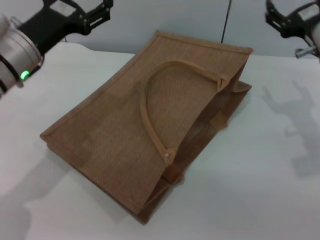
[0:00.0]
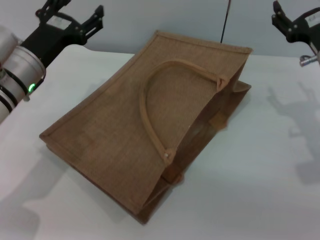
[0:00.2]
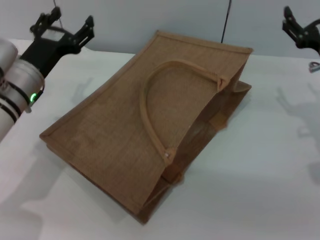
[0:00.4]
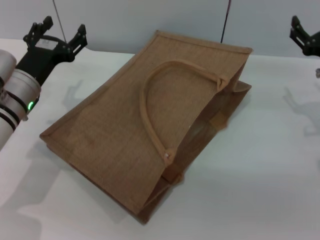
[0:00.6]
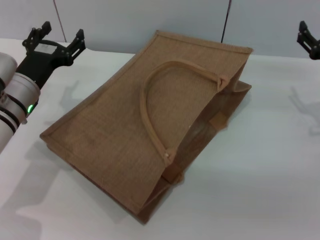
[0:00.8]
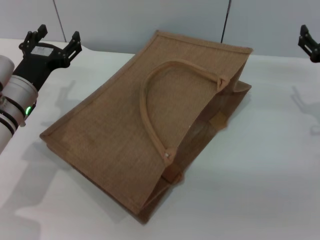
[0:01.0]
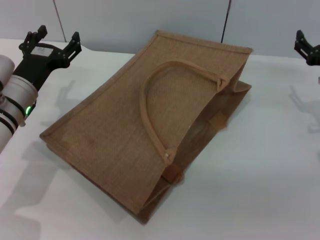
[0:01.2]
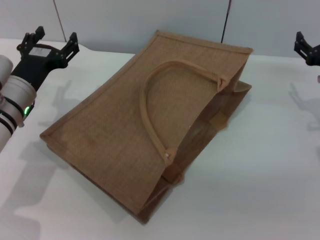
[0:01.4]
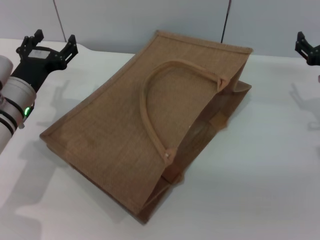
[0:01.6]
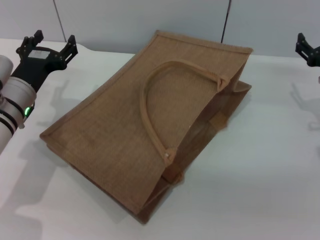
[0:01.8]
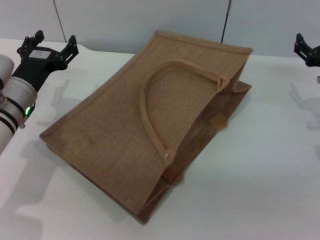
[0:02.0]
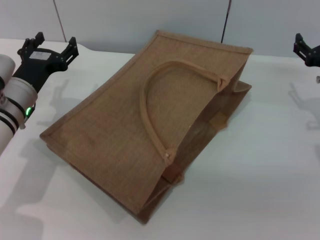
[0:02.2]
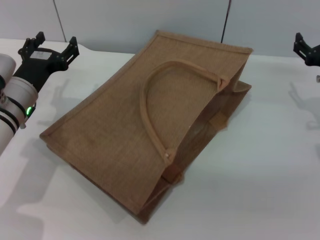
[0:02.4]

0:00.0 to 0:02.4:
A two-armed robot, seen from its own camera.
Task of the whole recording: pick up the orange and peach from the table and place it in the brown handbag.
0:00.0 to 0:01.2: The right gripper shifts about 10 cm downward and to the right; the left gripper shifts some 10 cm downward.
0:01.2 to 0:02.4: Neither gripper changes place.

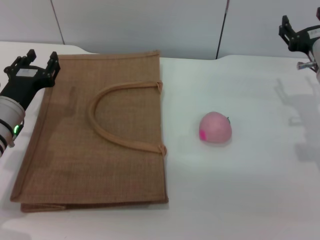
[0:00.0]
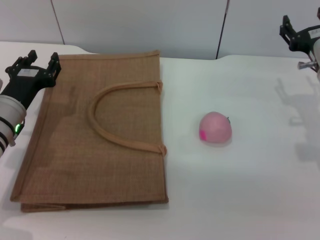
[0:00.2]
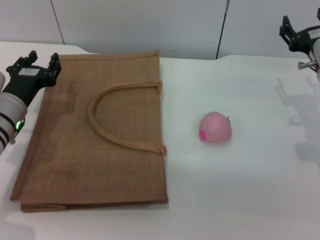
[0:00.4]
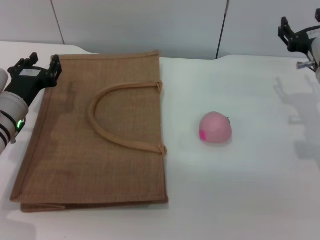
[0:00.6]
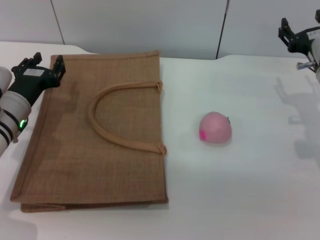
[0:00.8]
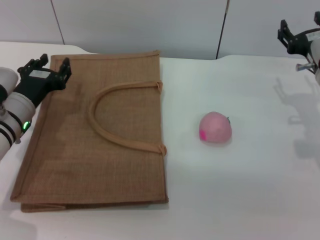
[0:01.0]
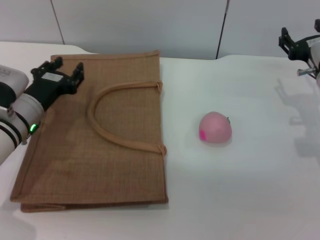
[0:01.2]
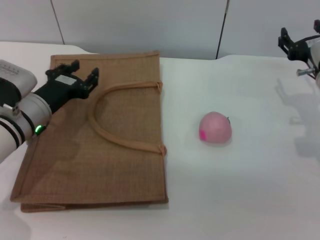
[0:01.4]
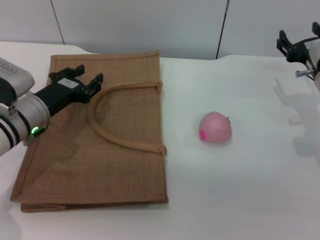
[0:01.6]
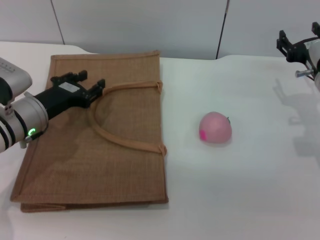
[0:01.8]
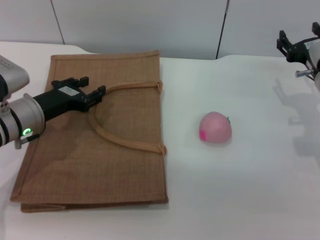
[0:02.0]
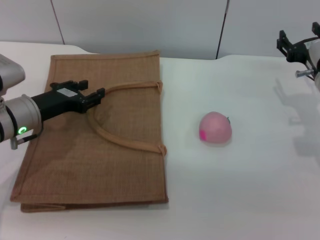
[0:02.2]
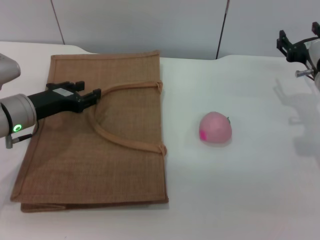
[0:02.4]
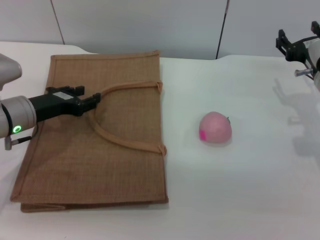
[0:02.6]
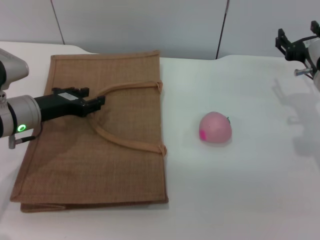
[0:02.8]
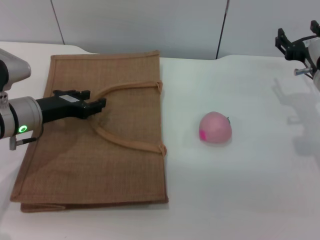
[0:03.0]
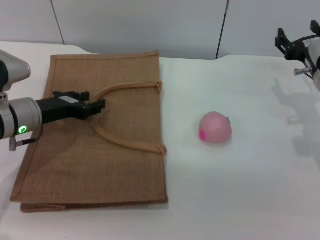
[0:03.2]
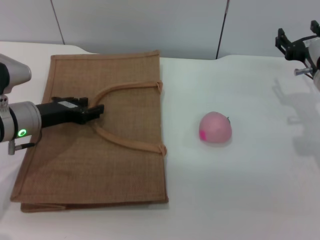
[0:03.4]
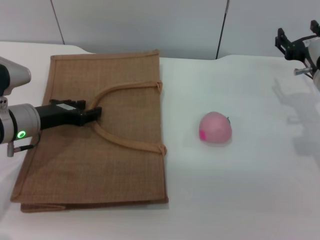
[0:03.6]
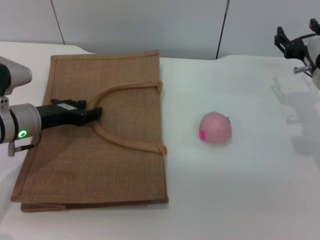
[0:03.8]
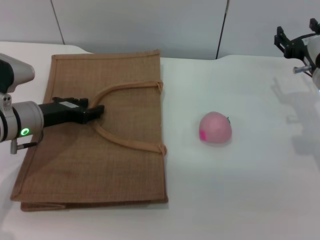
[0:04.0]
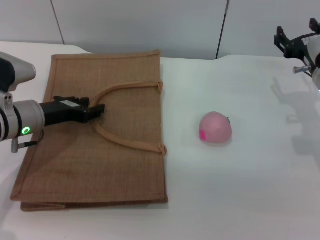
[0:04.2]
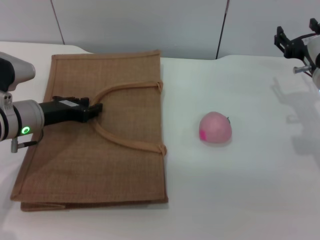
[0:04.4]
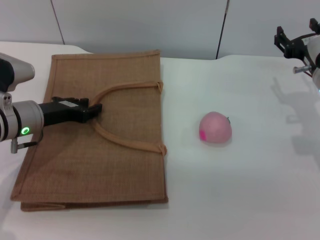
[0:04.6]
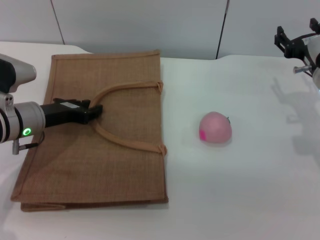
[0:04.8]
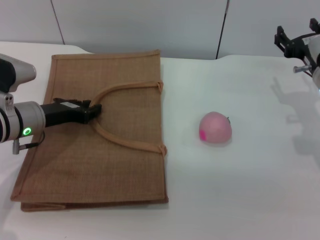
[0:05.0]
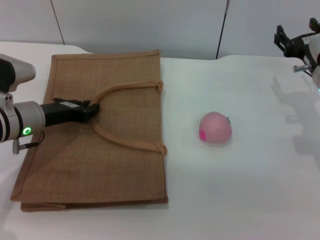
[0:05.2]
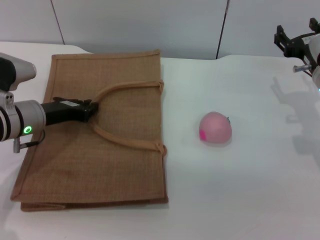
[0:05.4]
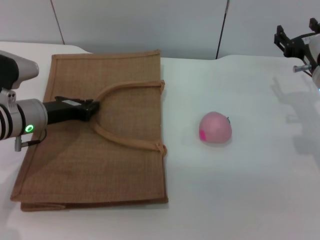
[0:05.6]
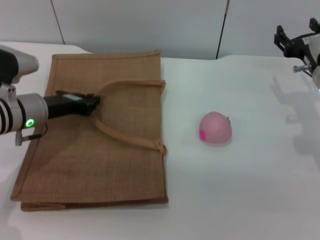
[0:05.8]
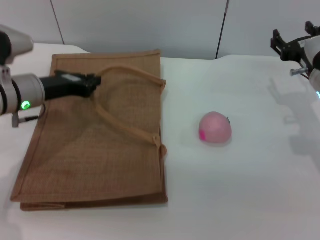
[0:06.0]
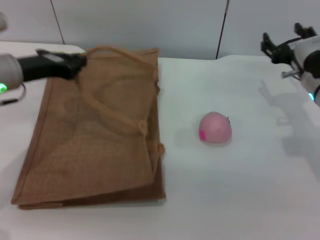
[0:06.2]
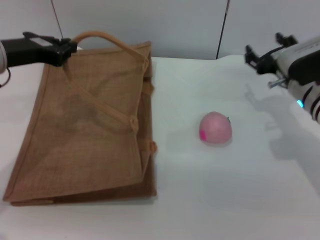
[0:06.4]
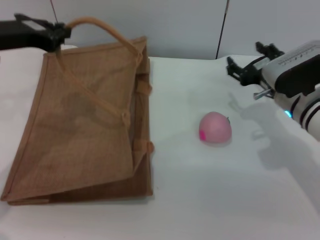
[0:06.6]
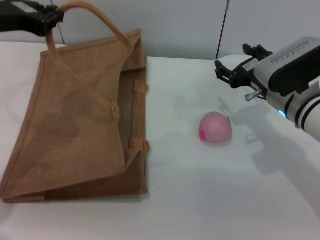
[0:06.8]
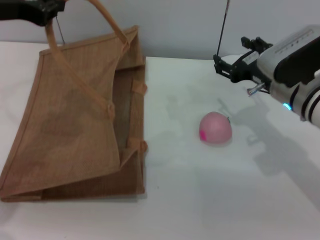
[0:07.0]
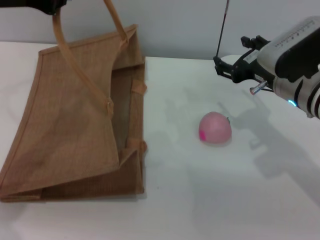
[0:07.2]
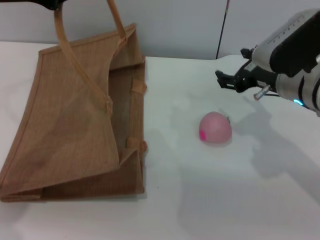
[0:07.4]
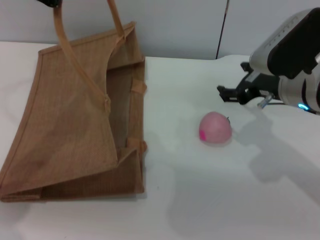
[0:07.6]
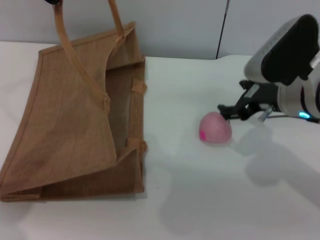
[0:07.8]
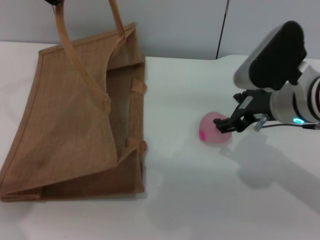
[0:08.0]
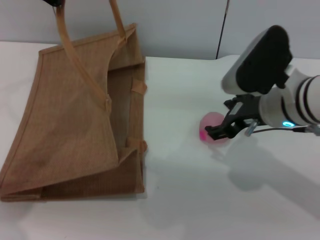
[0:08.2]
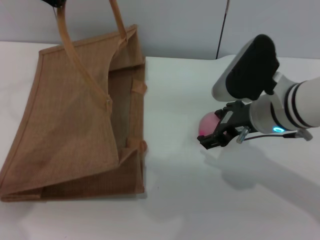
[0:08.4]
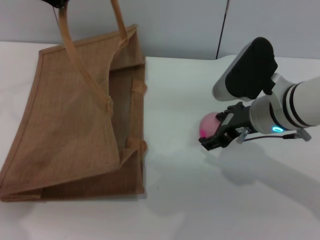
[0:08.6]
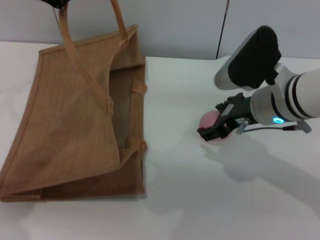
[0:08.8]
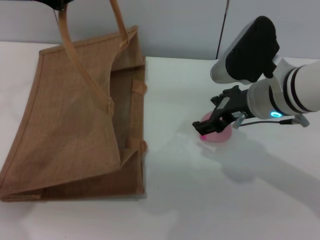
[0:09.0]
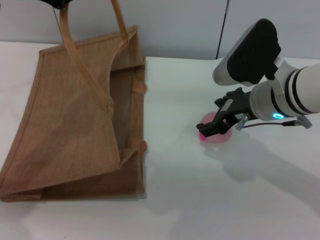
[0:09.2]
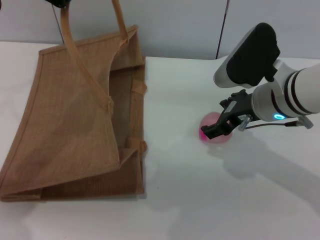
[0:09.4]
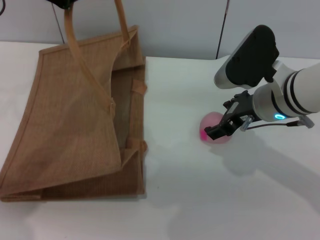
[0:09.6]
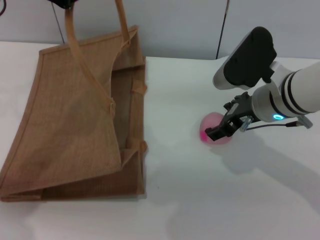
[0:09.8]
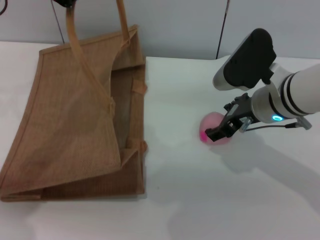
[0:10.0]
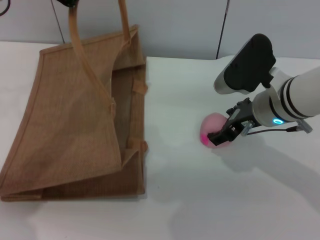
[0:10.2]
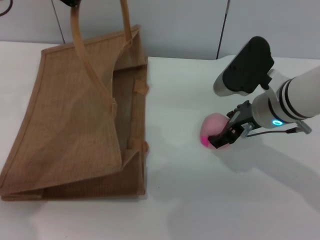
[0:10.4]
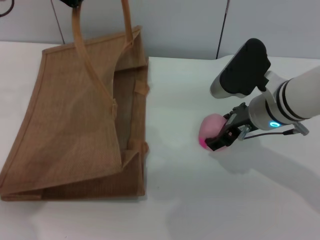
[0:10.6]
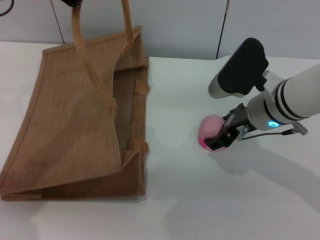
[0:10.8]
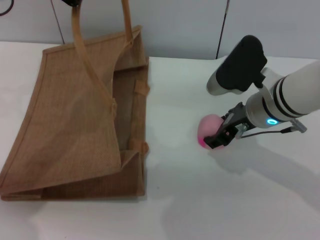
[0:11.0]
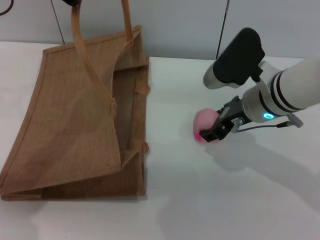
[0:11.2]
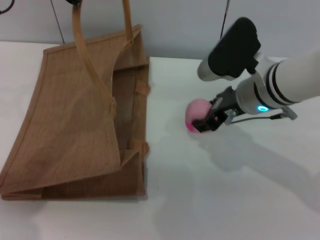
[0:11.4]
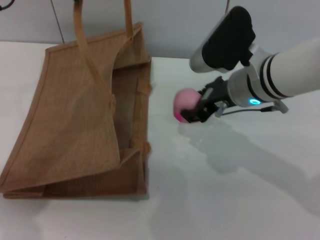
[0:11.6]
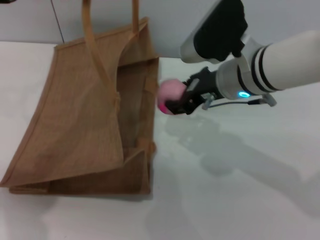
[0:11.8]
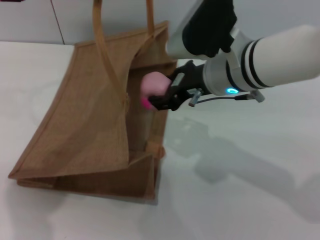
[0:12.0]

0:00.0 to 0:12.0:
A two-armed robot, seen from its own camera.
Task of the whole recording: pick up the peach from the table and place it in the brown handbag.
Step, 0:00.0 to 0:05.8: Lift the woven bag with the left gripper to open it.
Step, 0:06.0 to 0:11.6: Pick up the peach with the right gripper.
0:03.0 to 0:04.4: The grippers move only a little.
0:04.4 to 0:06.0: The left gripper closes up.
0:06.0 to 0:07.6: The right gripper moves upward and to the left, some 10 cm. The left gripper heads upward, covering some 20 cm.
0:09.0 to 0:10.4: The grippers move only a little.
0:10.4 to 0:12.0: The right gripper shifts some 10 cm to the left and upward, and closes its fingers.

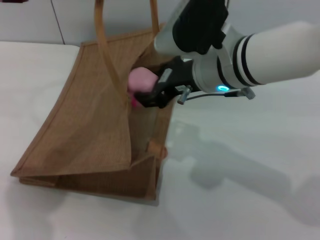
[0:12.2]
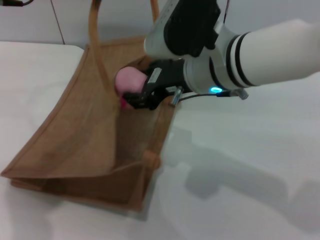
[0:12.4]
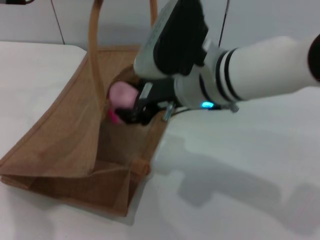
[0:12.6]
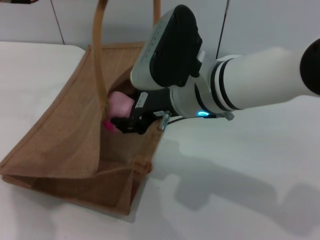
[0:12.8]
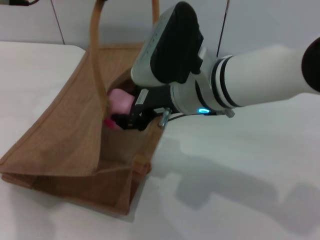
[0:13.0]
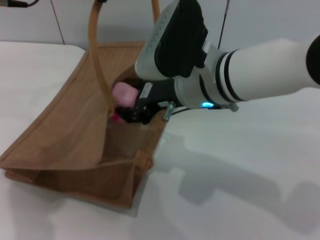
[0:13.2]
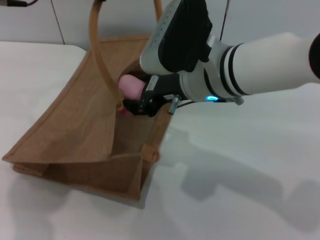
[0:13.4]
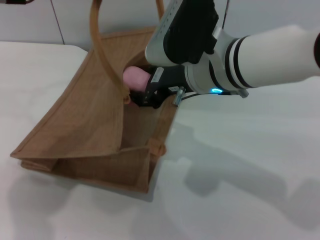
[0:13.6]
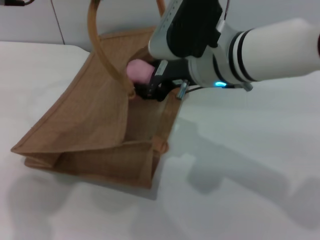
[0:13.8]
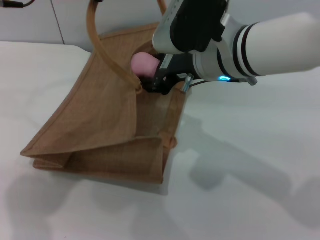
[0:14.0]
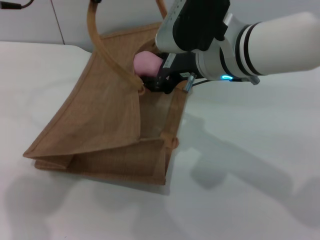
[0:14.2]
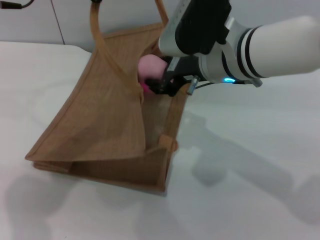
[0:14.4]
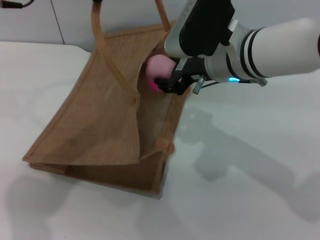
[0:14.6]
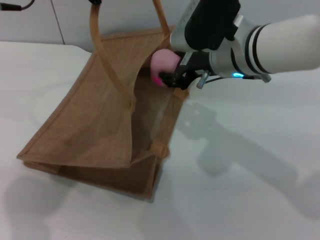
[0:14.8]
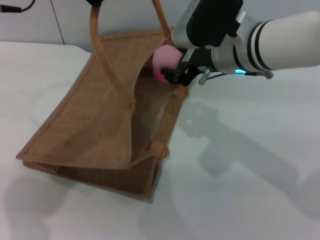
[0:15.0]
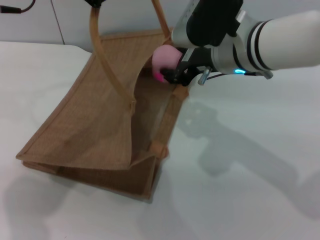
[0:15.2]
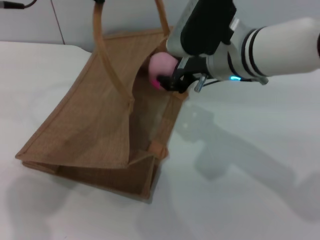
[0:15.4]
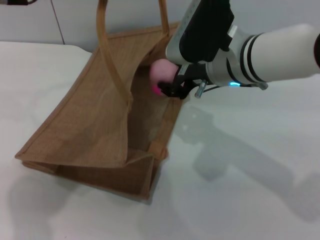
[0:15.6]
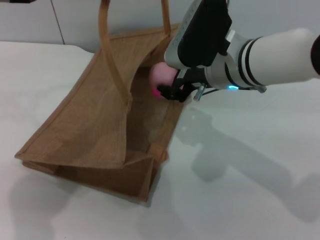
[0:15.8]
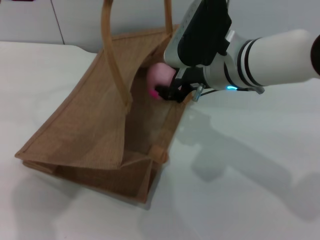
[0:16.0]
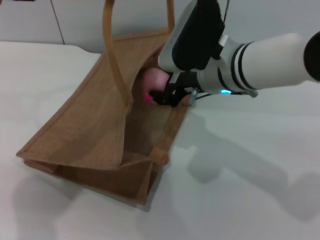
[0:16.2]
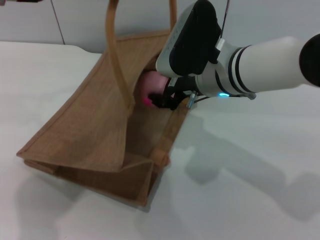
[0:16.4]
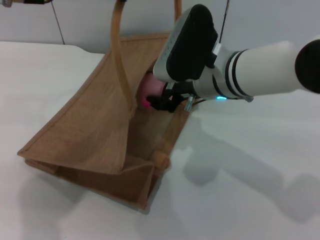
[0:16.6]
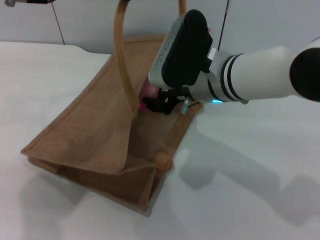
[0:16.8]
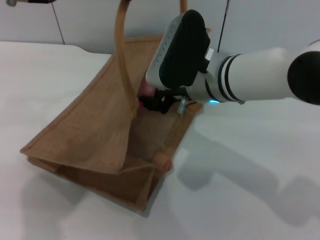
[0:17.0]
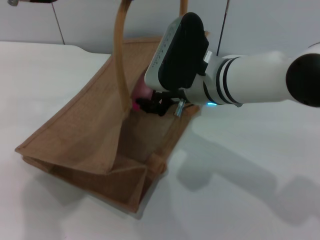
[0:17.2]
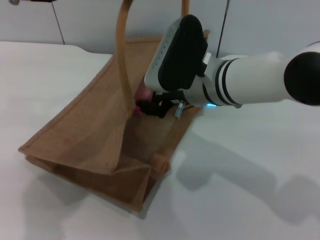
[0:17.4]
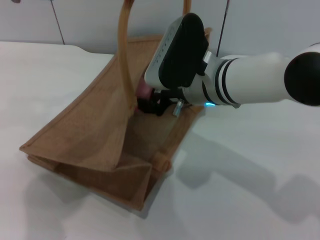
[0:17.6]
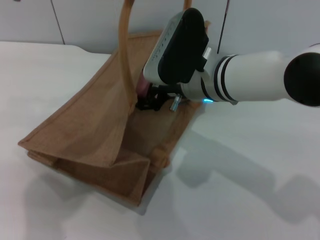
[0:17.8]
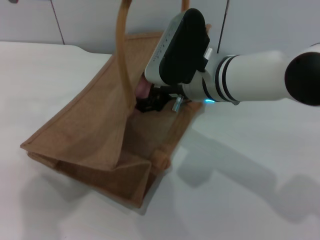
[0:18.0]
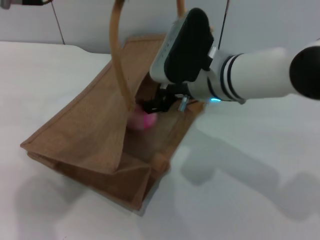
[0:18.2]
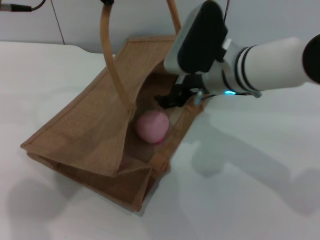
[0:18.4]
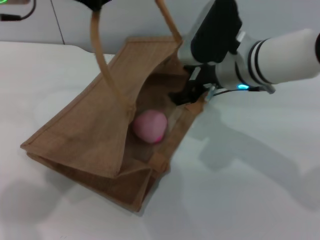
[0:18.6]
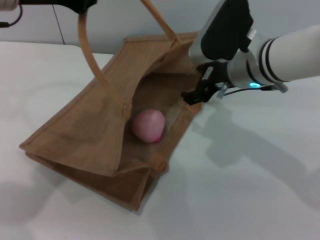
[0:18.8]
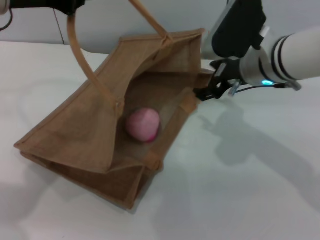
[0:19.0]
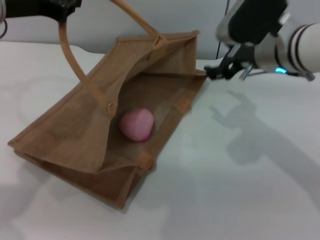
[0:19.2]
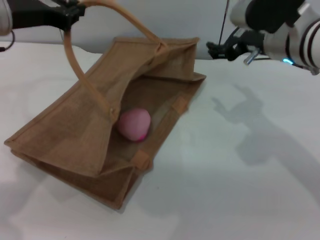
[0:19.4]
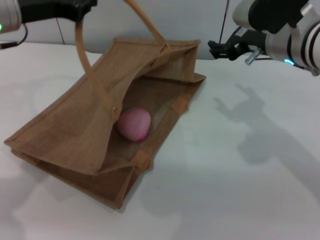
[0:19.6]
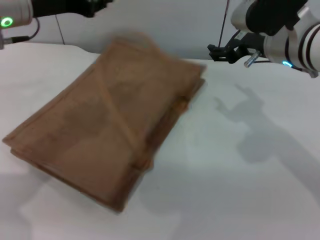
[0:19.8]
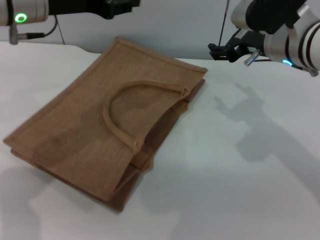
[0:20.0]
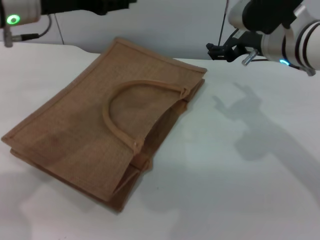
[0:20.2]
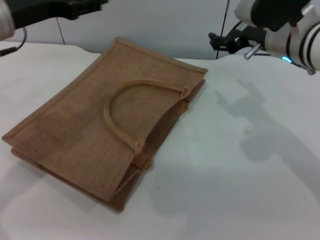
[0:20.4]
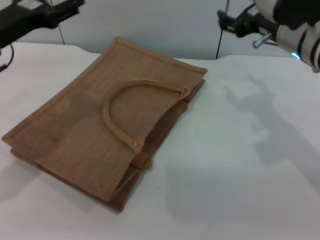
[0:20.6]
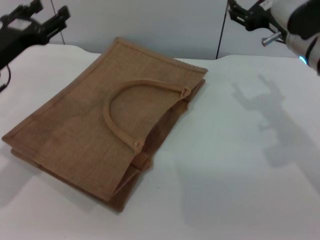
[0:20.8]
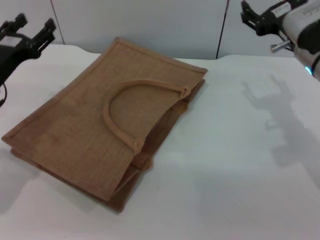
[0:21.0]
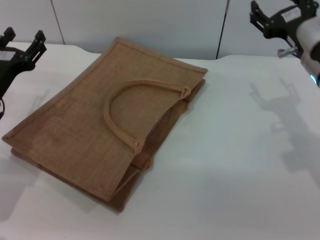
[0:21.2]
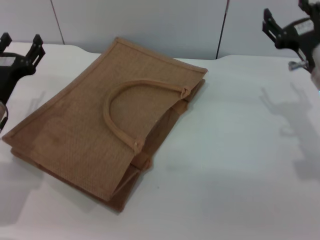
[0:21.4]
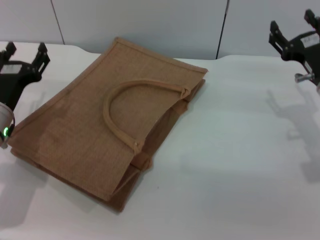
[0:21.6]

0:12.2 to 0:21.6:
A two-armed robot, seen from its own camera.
Task of the whole recording: pick up the peach from the table and place it in the brown handbag.
Step, 0:12.2 to 0:18.4: Place the peach into the woven bag with the right gripper.
Step, 0:18.6 to 0:20.2: Lower the woven bag with the left gripper to close it.
0:12.2 to 0:15.4: The grippers stay close to where they were, moving slightly.
0:17.0 to 0:18.4: The right gripper opens its fingers.
0:18.4 to 0:20.0: The right gripper heads to the right, covering approximately 10 cm, while the left gripper goes about 5 cm downward.
0:20.0 to 0:21.6: The left gripper goes some 20 cm downward, and opens. The right gripper is displaced downward and to the right by some 15 cm.
